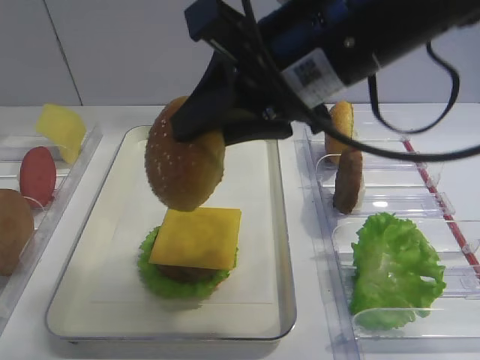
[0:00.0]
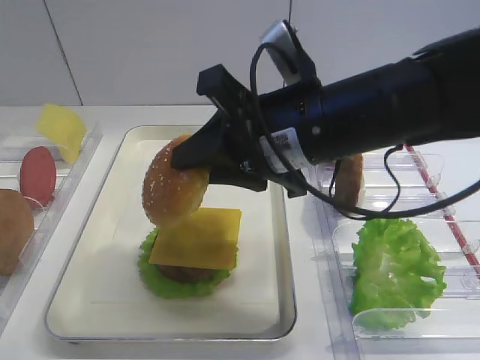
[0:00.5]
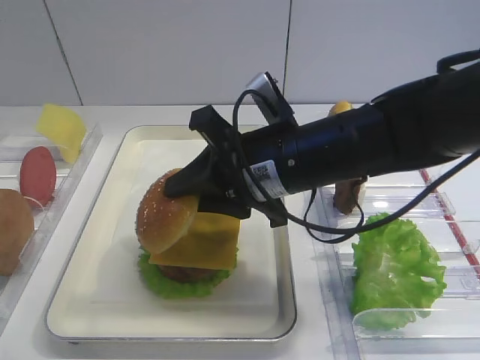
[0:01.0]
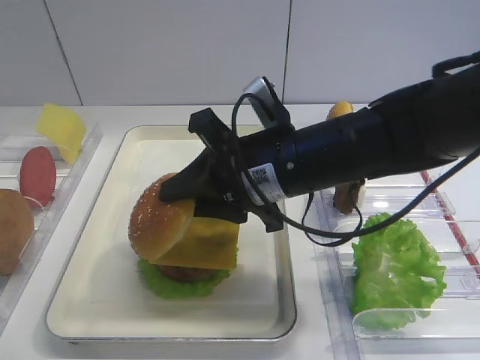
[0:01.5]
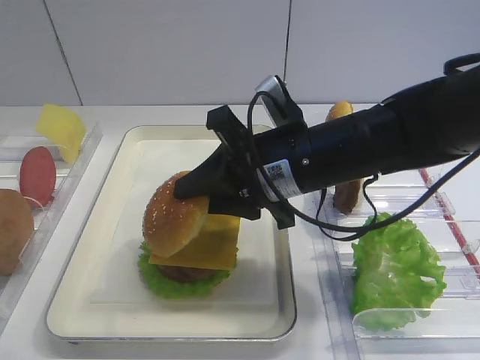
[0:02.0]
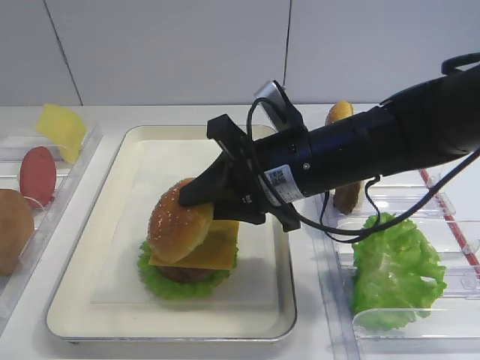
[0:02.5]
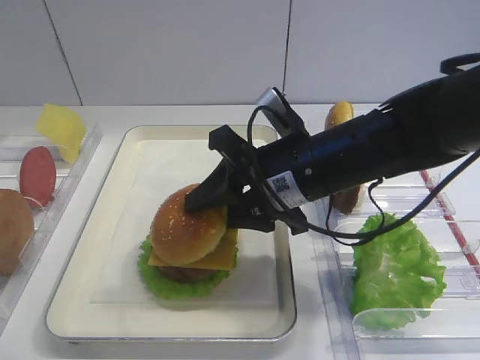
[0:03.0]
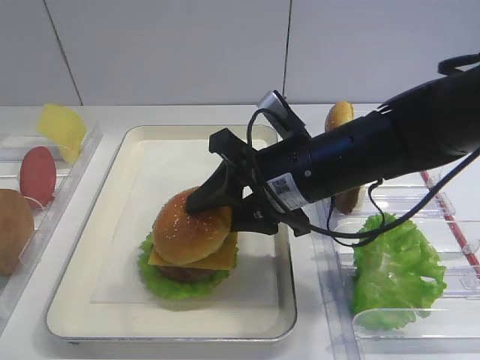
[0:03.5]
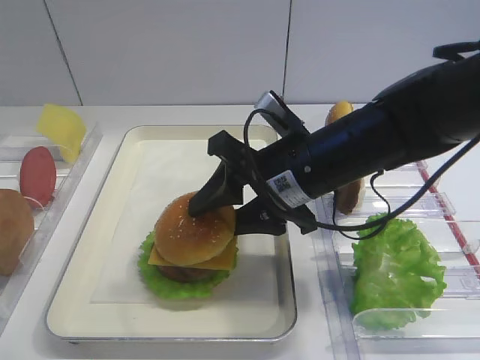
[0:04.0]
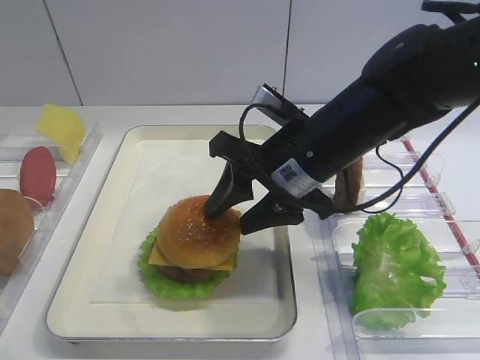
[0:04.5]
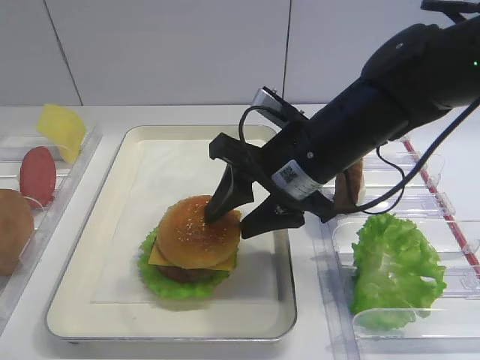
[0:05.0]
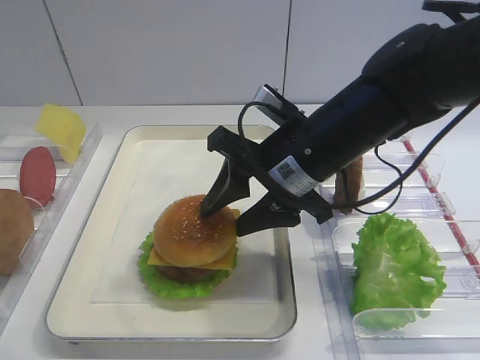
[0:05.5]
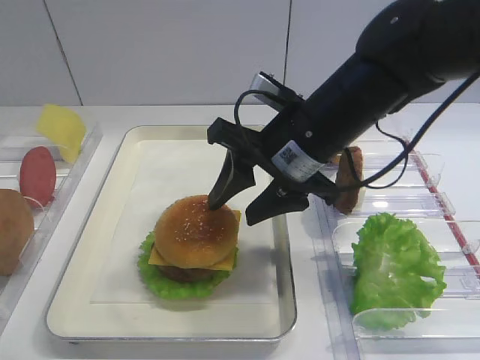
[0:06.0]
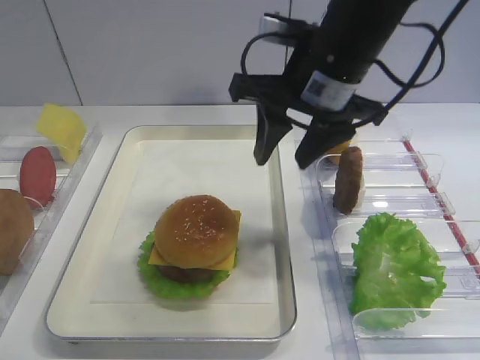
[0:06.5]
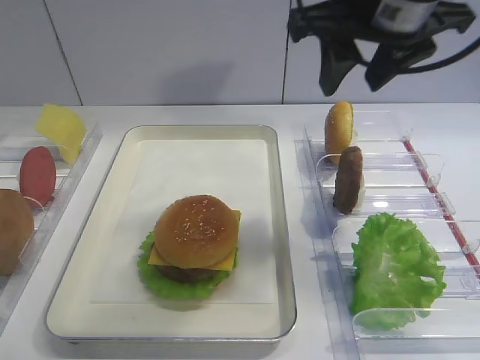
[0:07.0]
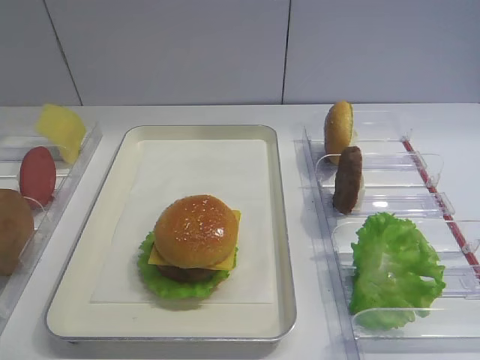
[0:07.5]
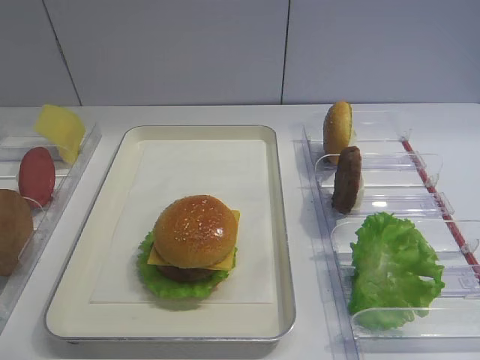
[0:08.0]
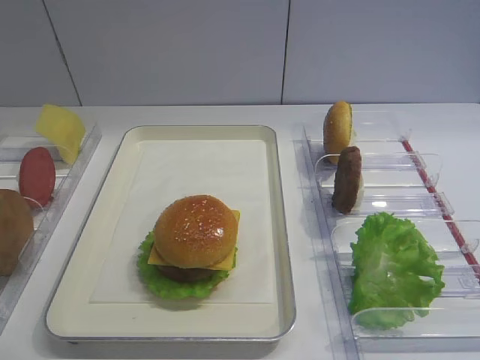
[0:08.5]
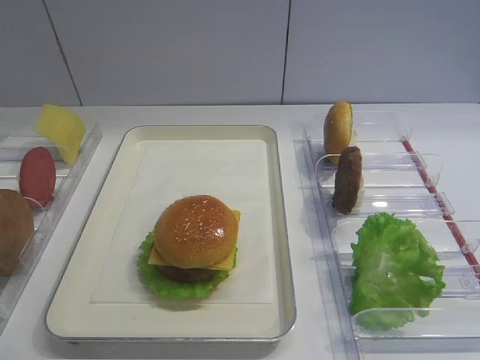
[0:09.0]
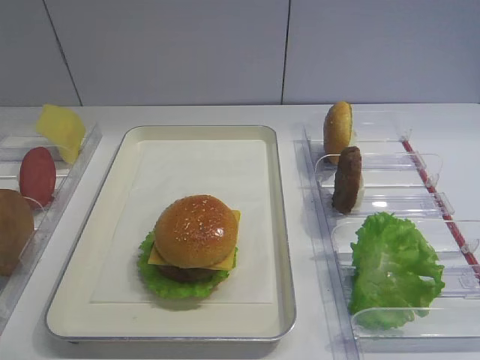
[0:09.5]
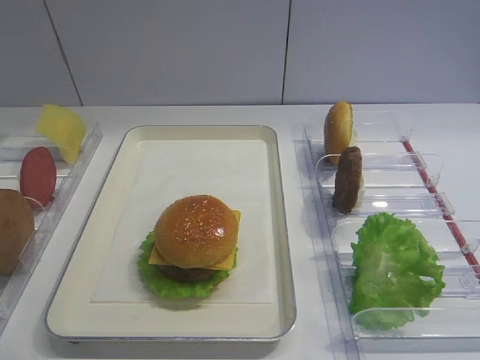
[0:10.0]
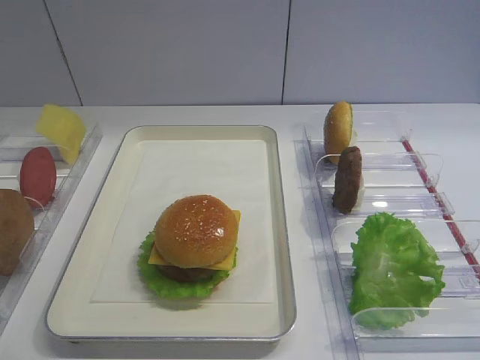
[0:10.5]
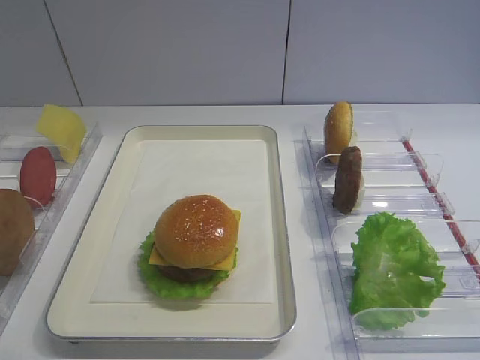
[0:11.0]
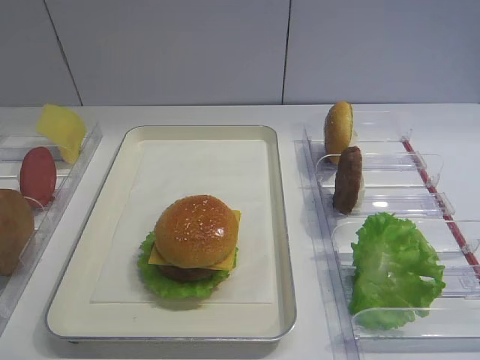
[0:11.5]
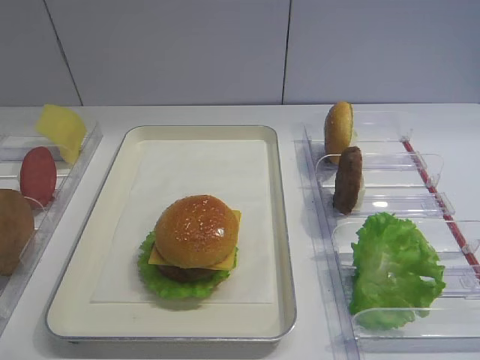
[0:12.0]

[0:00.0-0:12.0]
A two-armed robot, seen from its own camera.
Step, 0:00.0 to 0:04.0: Place the hamburger lid on the cheese slice with the right gripper.
0:00.0 to 0:02.0: The right gripper moves downward, some 15 cm.
0:02.0 to 0:04.0: The right gripper opens its fingers.
0:06.0 to 0:08.0: The right gripper is displaced backward, to the right and upward by roughly 35 cm.

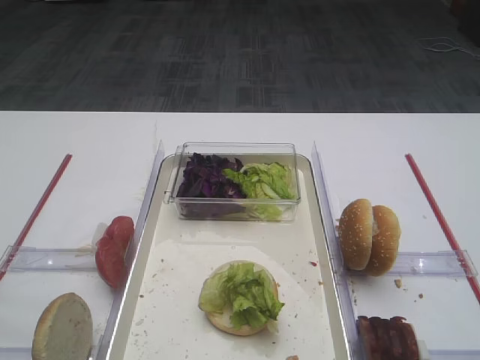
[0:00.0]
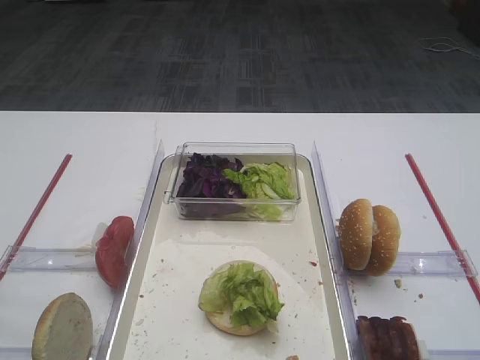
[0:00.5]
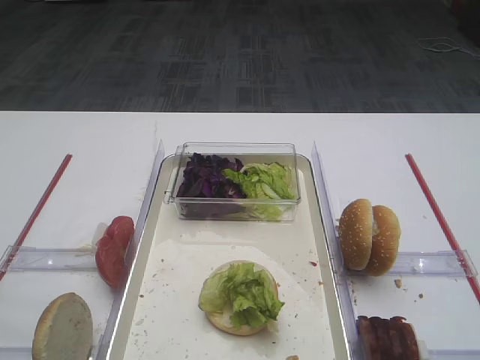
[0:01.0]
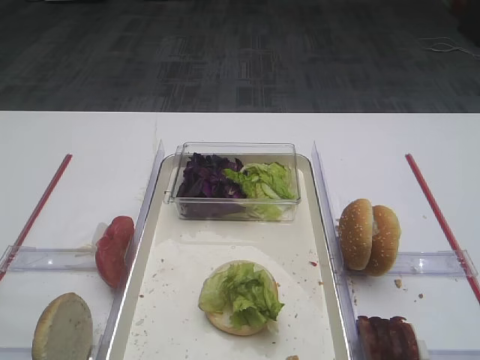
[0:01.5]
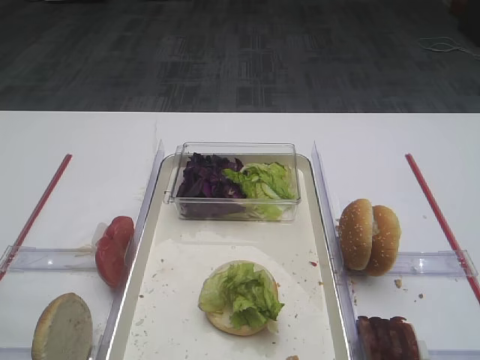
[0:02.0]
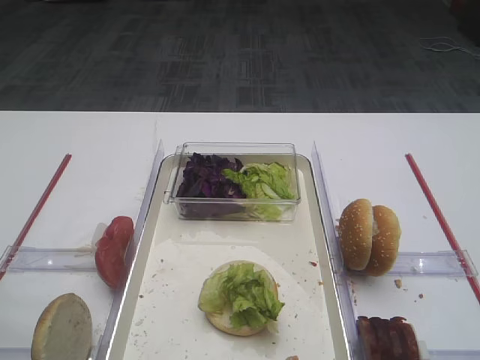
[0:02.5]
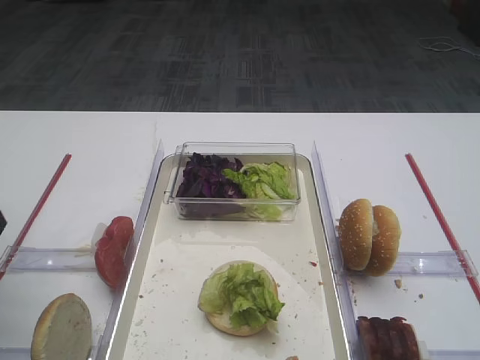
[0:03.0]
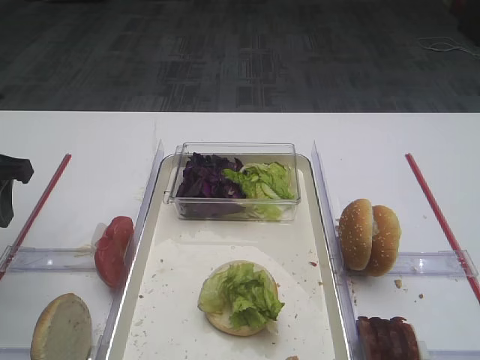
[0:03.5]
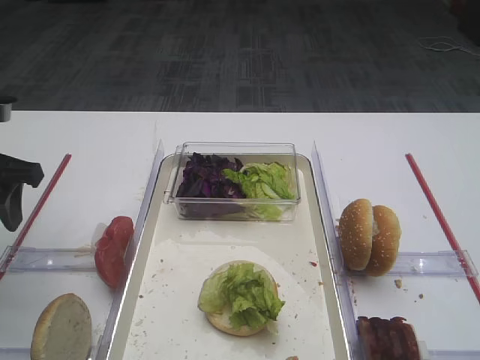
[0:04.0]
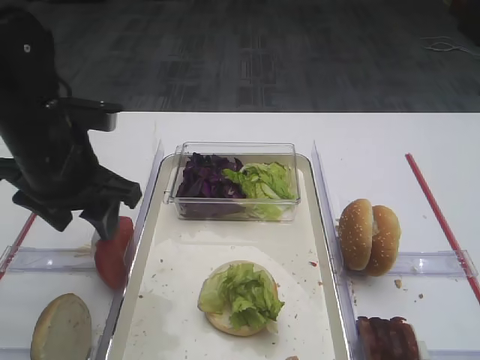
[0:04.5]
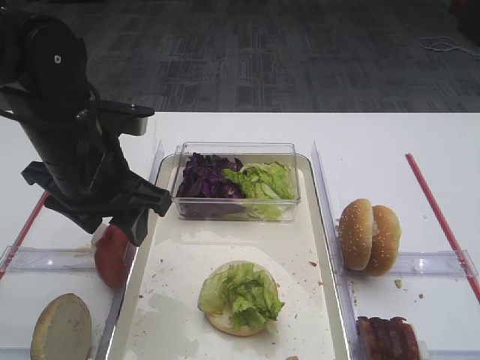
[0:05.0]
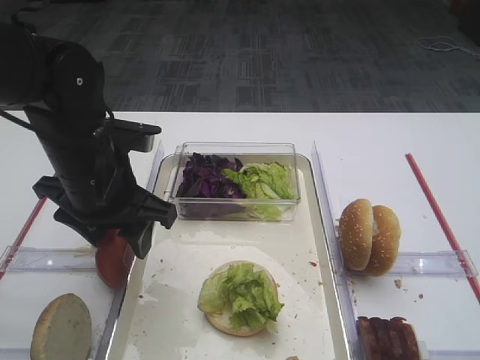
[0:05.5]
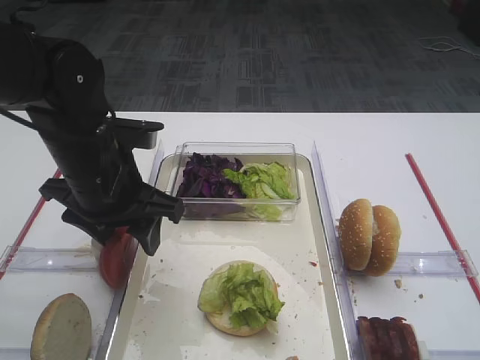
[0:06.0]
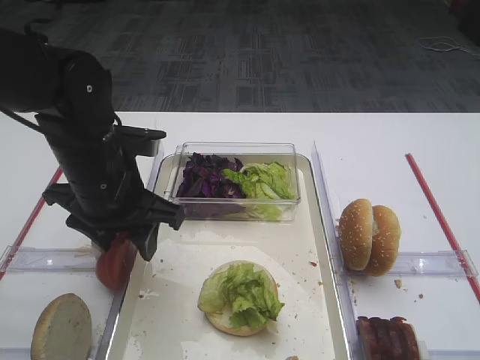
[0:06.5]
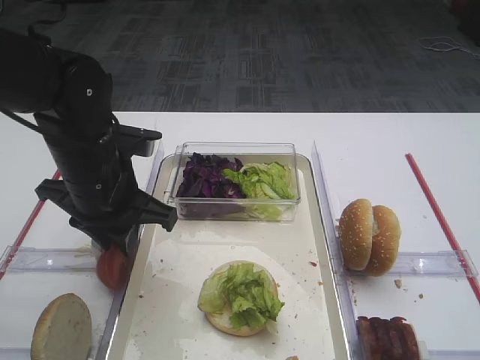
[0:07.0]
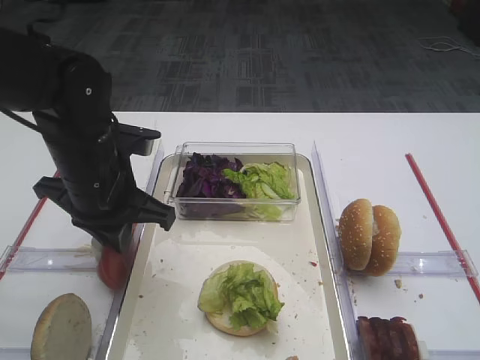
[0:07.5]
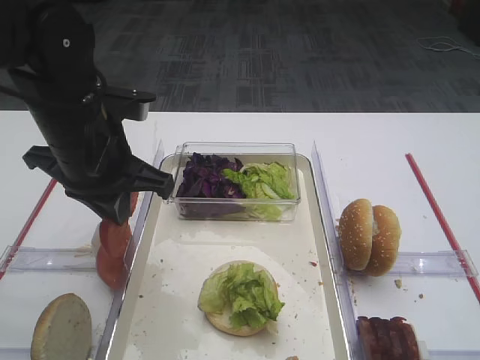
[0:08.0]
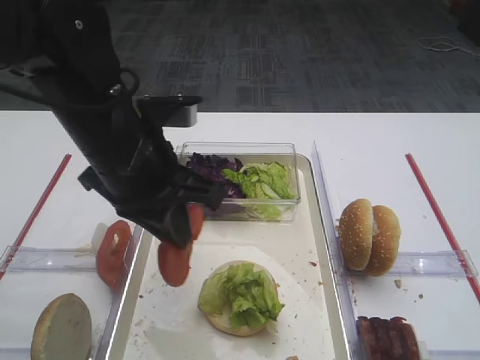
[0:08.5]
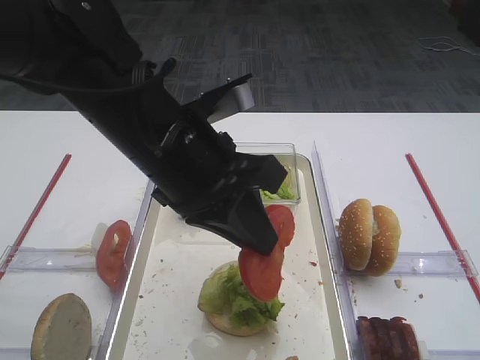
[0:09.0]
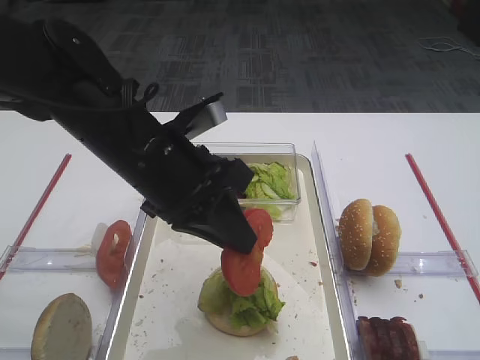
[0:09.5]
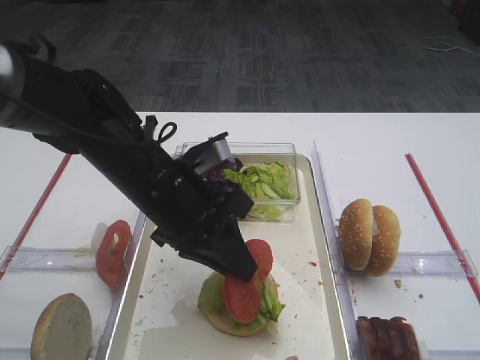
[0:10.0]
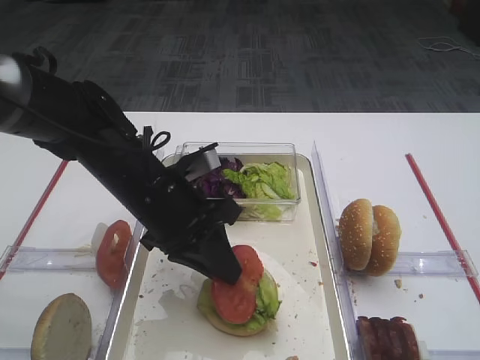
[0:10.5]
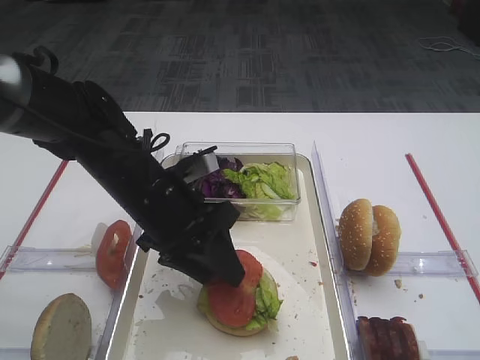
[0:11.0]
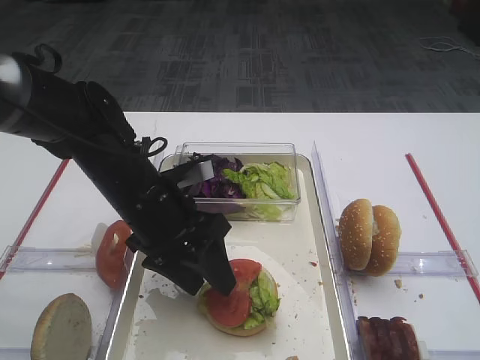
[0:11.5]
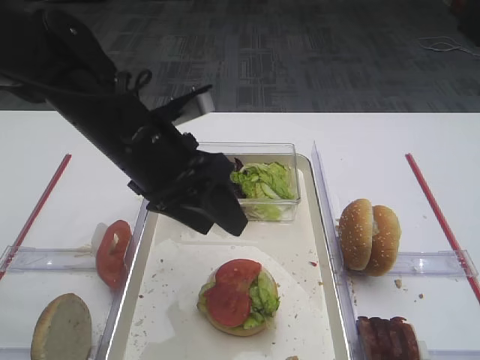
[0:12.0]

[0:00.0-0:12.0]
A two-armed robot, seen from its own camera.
Step, 0:00.0 to 0:07.5: Pick up the tomato slice with the left gripper.
Step, 0:08.0 to 0:11.5: Place the tomato slice on the lettuce leaf with the left gripper.
0:02.0 to 0:04.0: The left gripper is displaced forward by roughly 20 cm.
0:04.0 to 0:06.0: The left gripper travels to the right by some 15 cm.
0:06.0 to 0:08.0: The left gripper closes.
0:08.0 to 0:10.0: The left gripper shifts about 10 cm to the right and downward.
0:10.0 to 0:12.0: The left gripper changes place by approximately 5 cm, and opens its fingers.

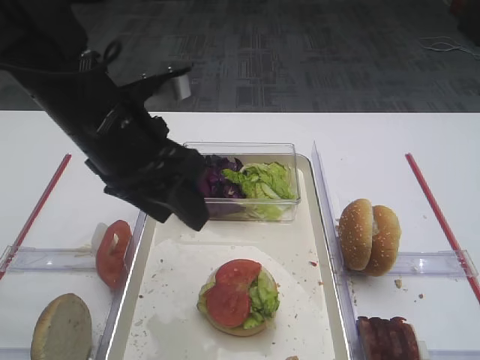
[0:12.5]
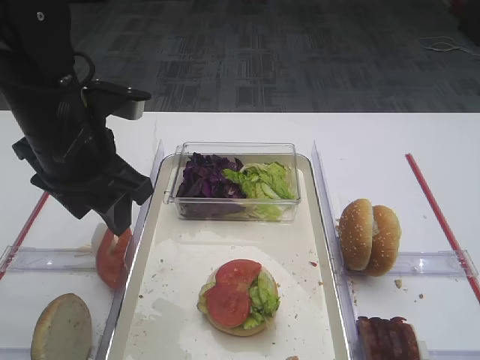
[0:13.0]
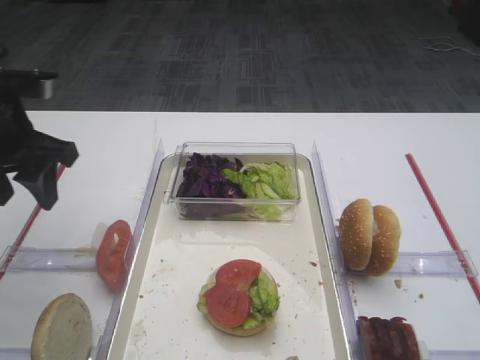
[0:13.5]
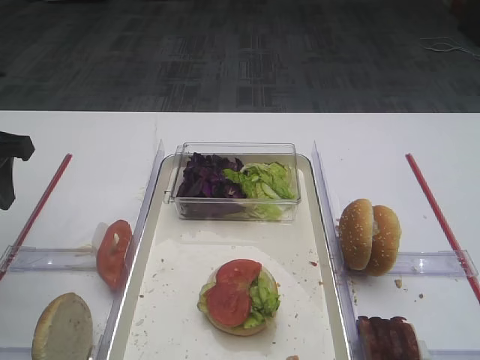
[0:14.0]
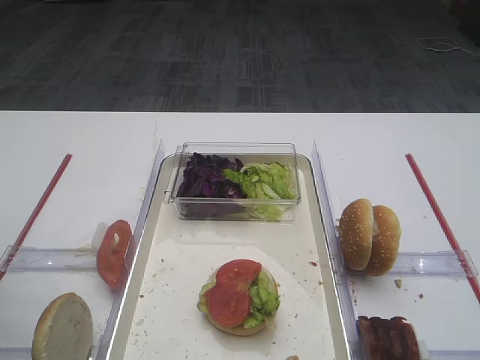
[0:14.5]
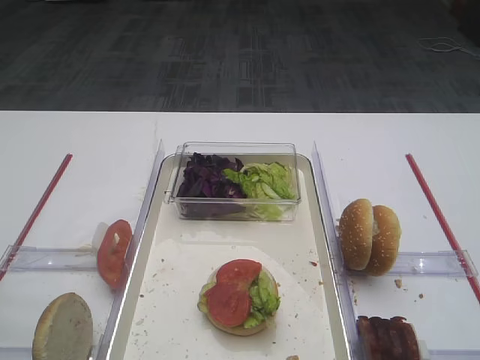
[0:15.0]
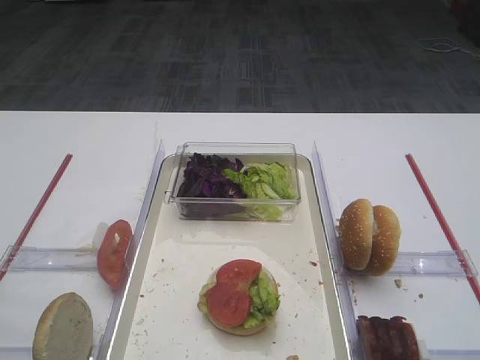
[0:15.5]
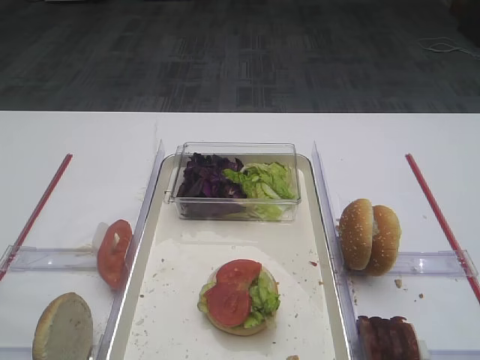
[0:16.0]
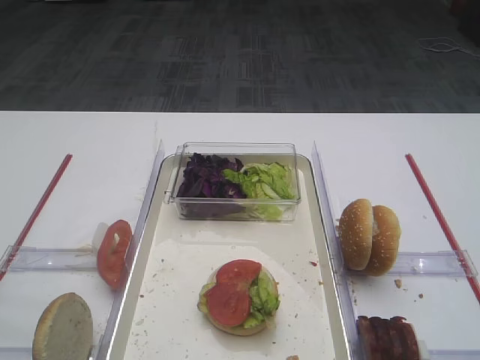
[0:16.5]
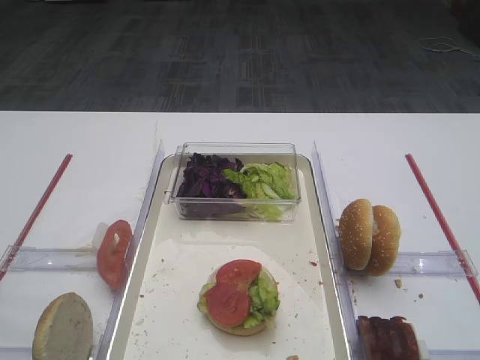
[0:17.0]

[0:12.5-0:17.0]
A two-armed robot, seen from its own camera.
0:12.5 to 0:14.5: The left gripper heads to the left and backward, covering some 20 cm.
